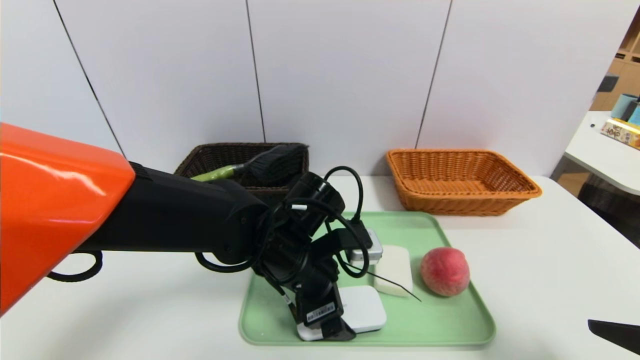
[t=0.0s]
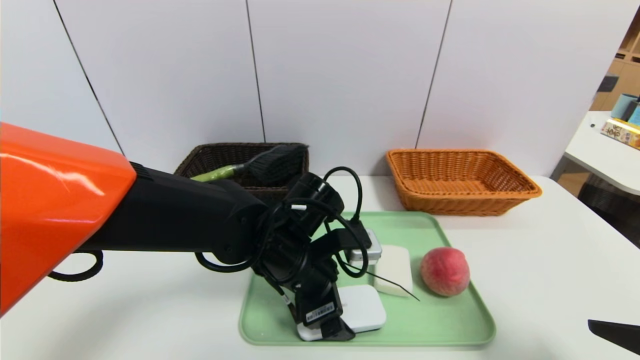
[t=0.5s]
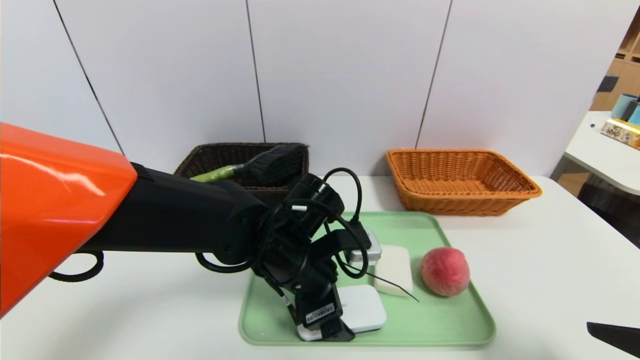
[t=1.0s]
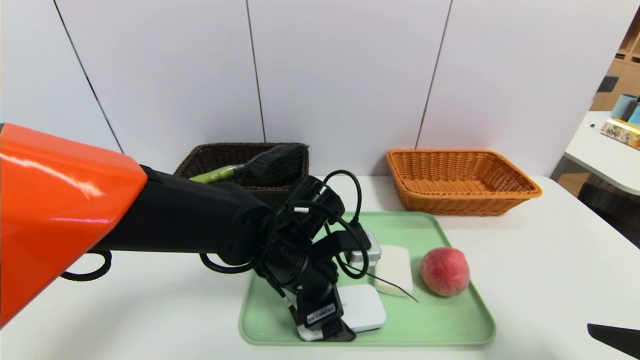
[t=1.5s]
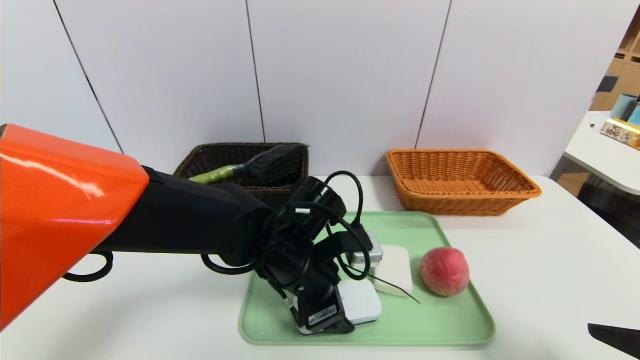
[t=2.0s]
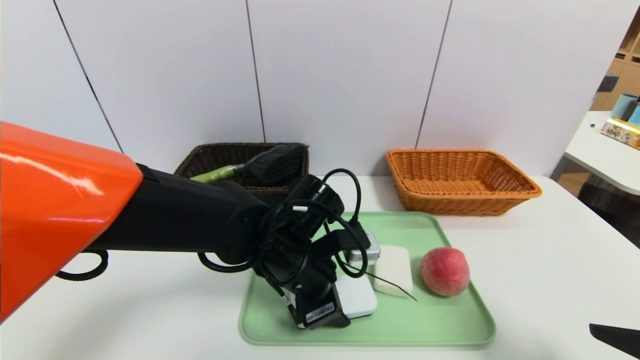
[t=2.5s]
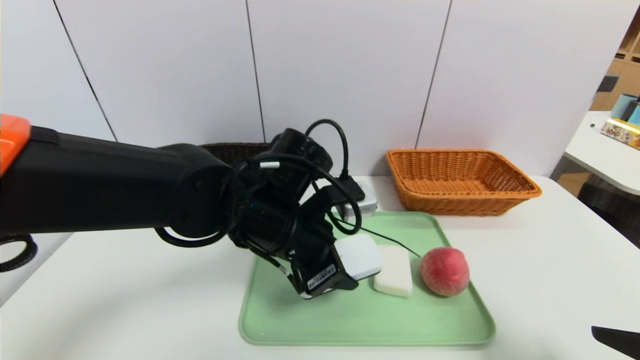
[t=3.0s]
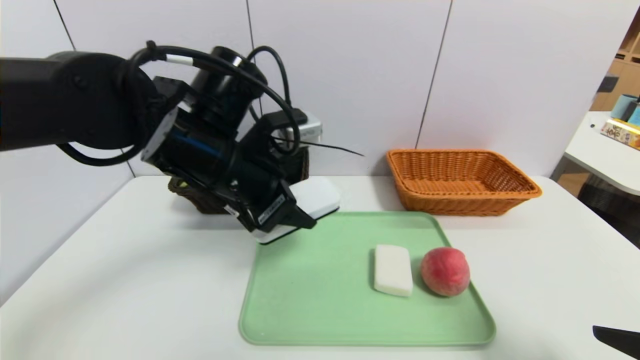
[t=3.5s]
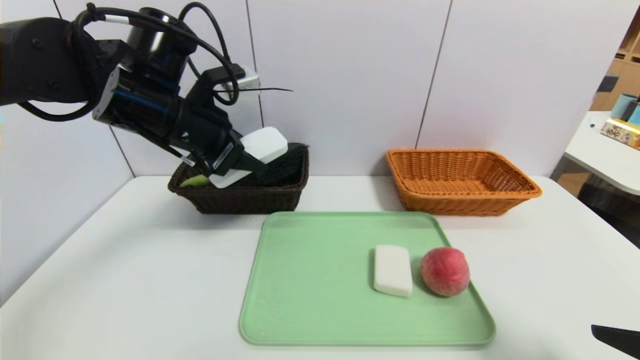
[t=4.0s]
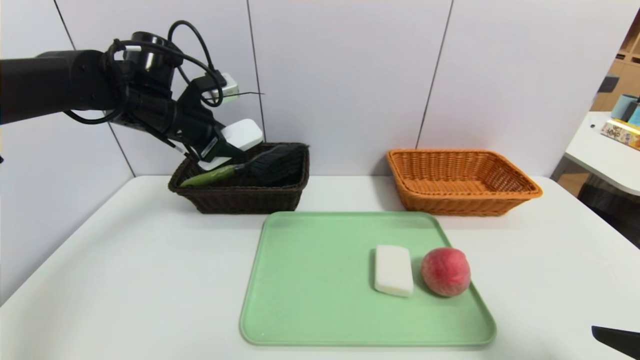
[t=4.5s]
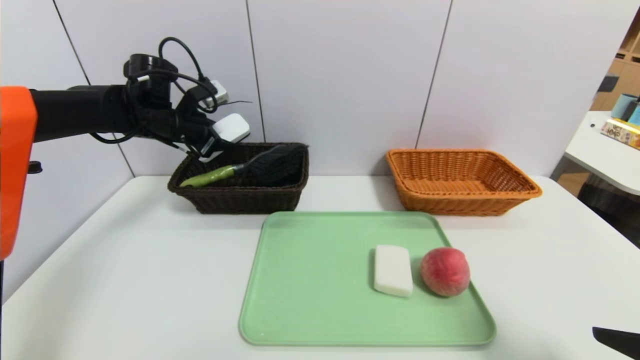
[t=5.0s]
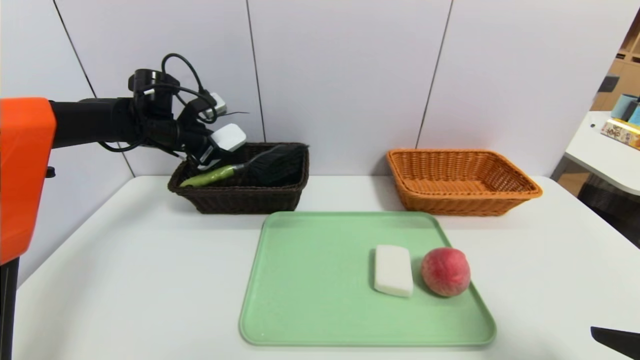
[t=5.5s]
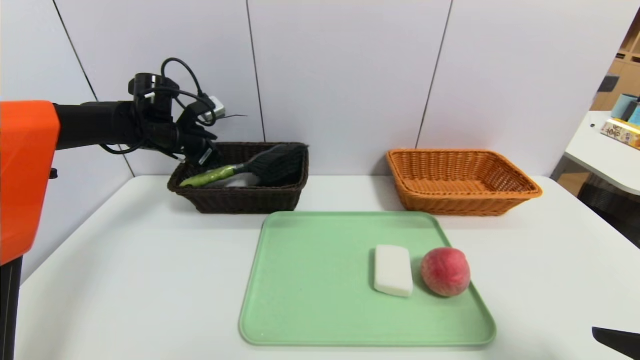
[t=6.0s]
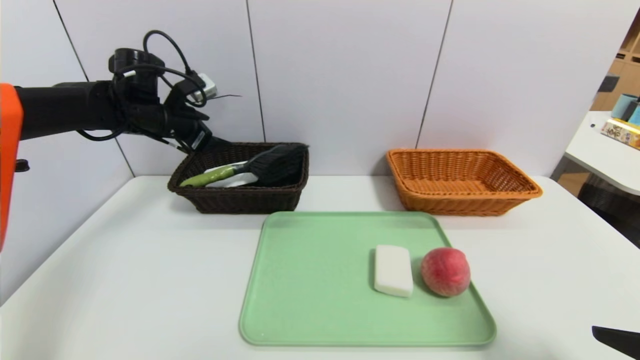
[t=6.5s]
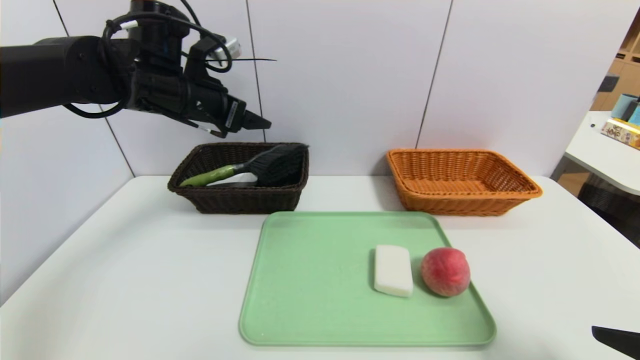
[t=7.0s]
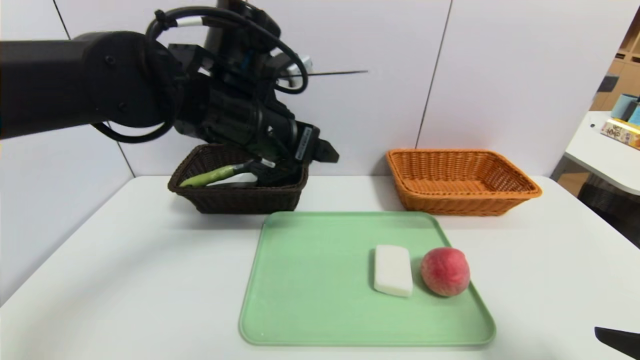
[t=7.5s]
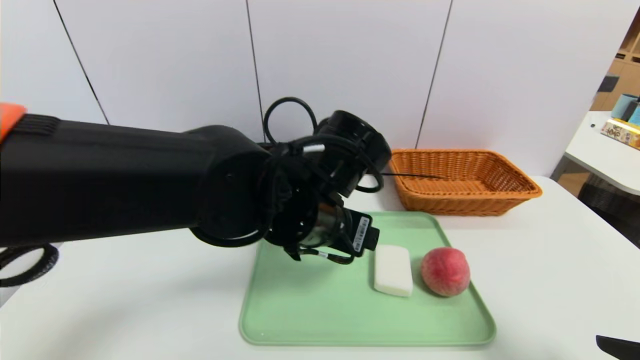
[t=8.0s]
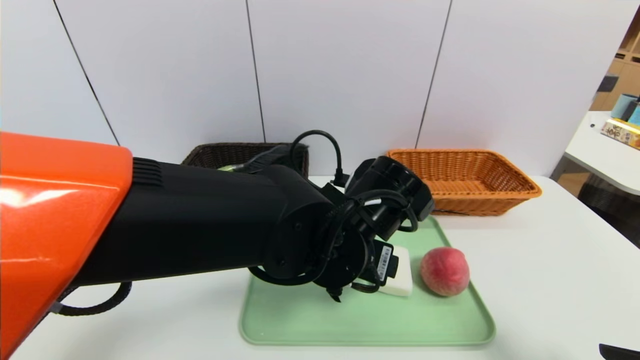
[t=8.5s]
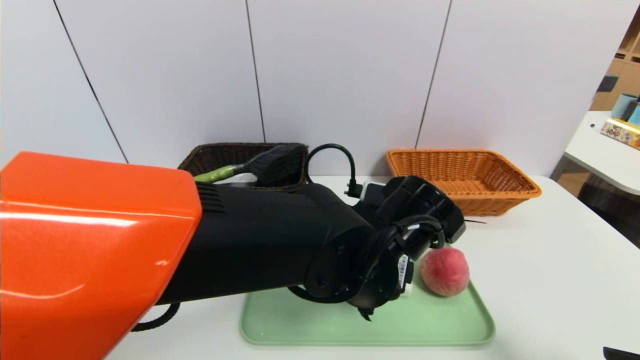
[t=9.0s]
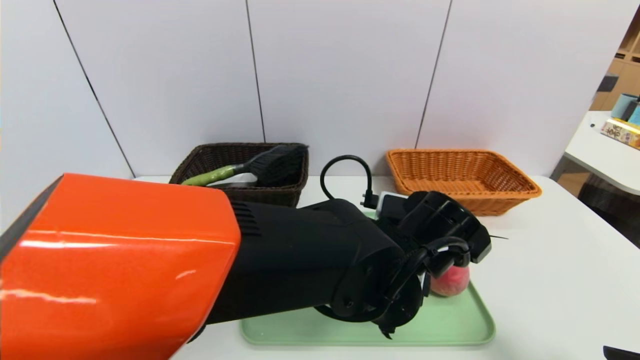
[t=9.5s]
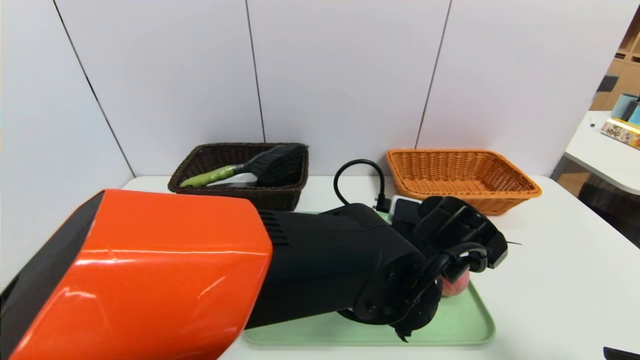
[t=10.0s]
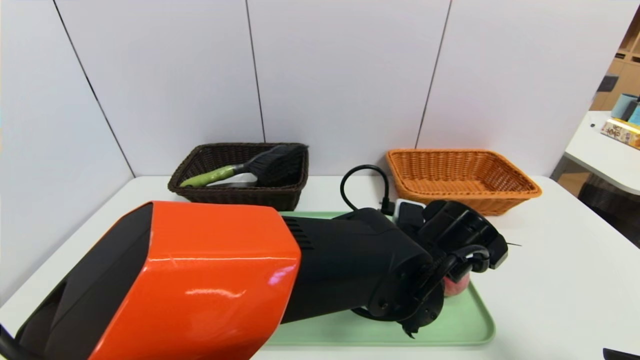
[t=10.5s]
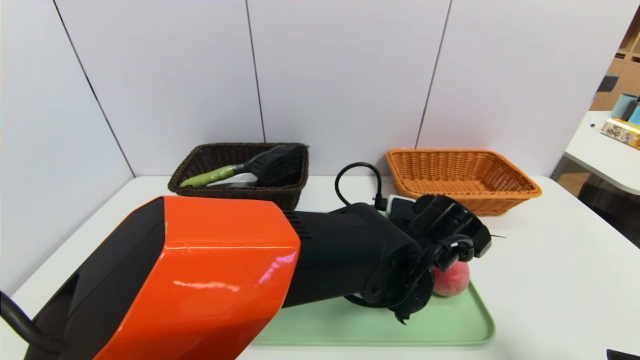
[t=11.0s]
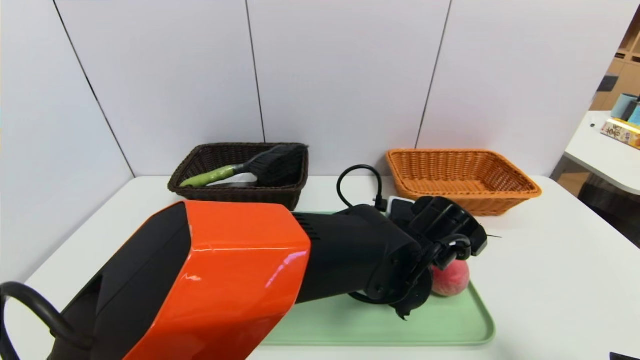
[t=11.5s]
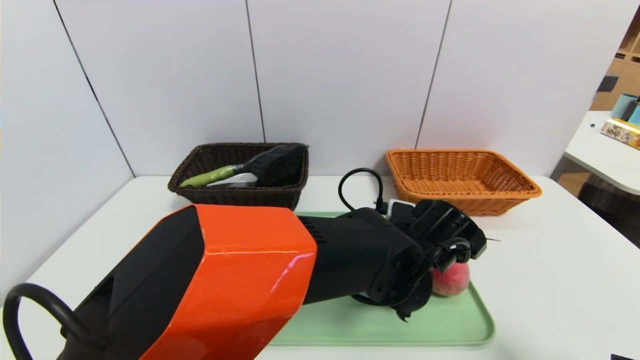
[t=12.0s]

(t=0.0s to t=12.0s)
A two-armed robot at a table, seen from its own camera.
Task of the whole recording: place the food in the right basket with the right gripper, and place the non food items in the left basket with the left gripper.
Step, t=0.0s - t=6.0s: Grasp the white eraser and put it in the left basket.
t=0.0s - t=2.0s: The left gripper closes its fingers.
t=2.0s - t=4.0s: The left gripper travels upward and to the left by some 20 cm.
t=4.0s - t=6.0s: The left gripper moves forward, to the left and downward, some 20 cm.
t=6.0s - t=8.0s: The left gripper goes roughly 35 cm to the right and backward.
t=8.0s - t=10.0s: The left gripper shifts approximately 10 cm to the right and downward.
t=10.0s - t=12.0s: The grippers stay close to where they were, moving slightly.

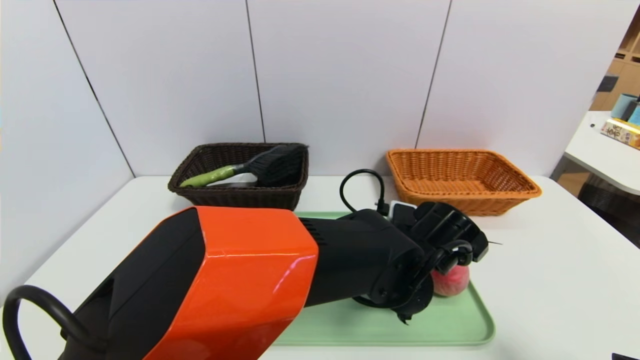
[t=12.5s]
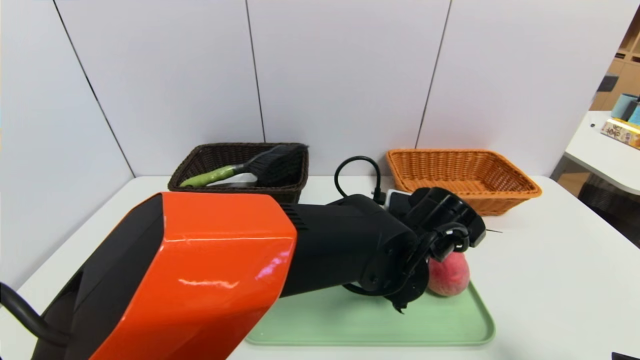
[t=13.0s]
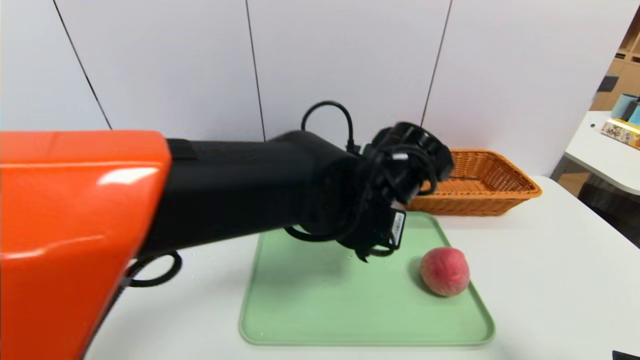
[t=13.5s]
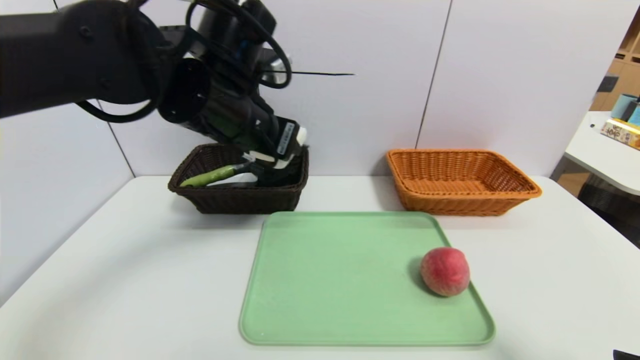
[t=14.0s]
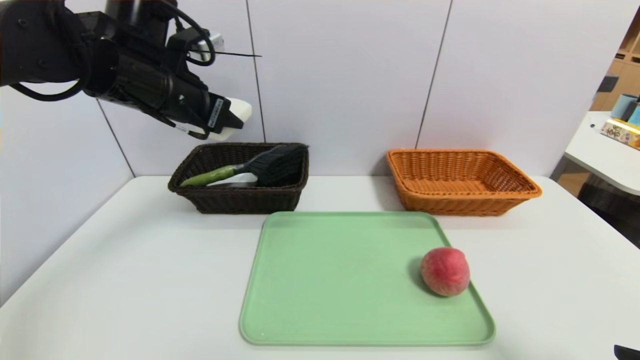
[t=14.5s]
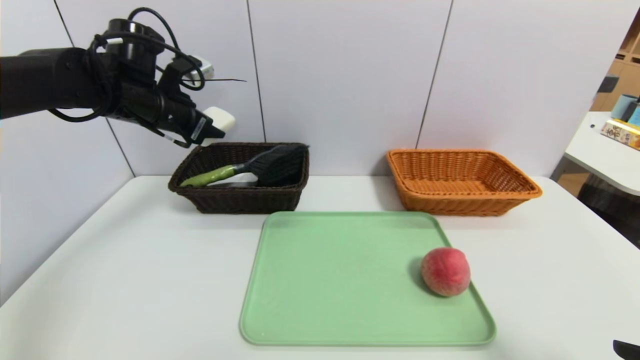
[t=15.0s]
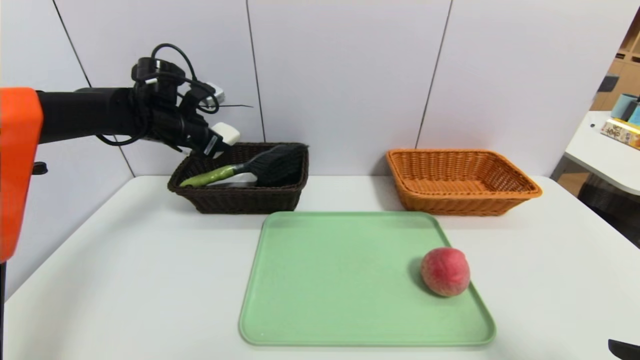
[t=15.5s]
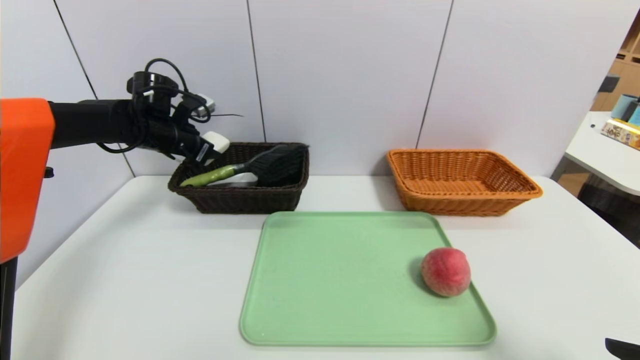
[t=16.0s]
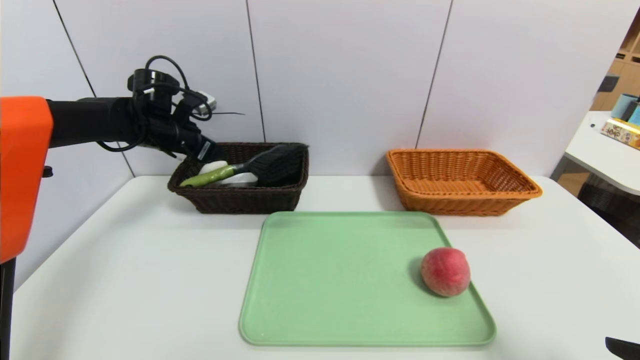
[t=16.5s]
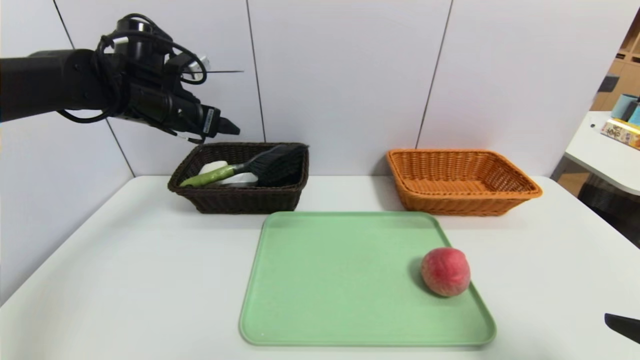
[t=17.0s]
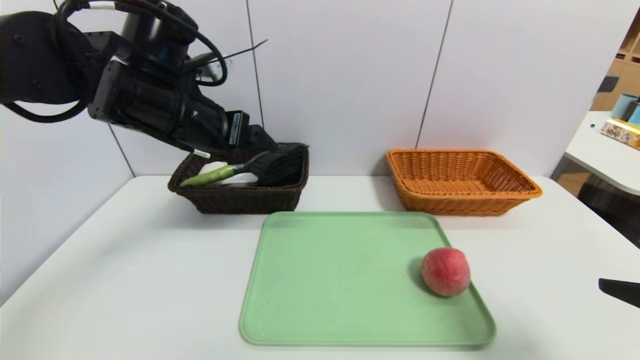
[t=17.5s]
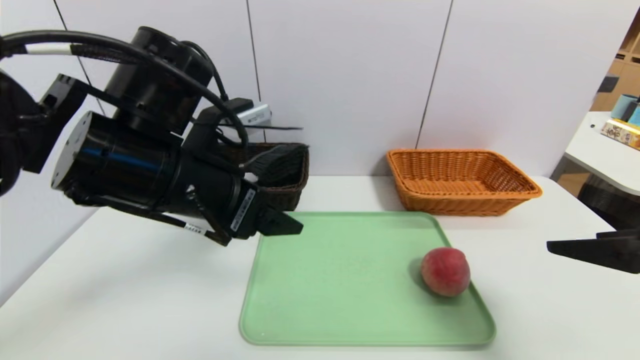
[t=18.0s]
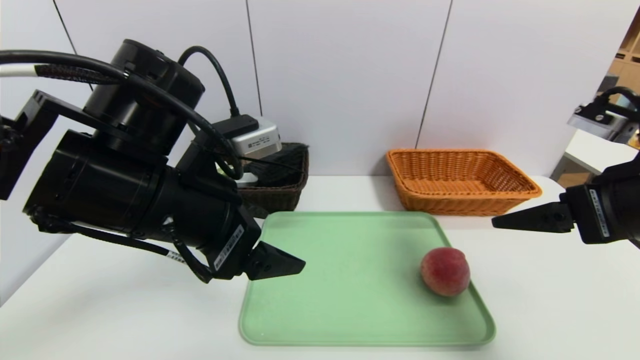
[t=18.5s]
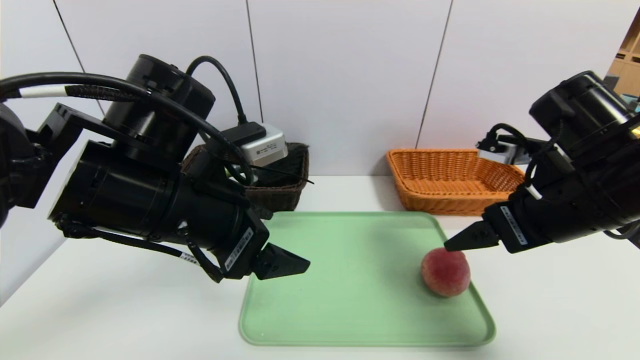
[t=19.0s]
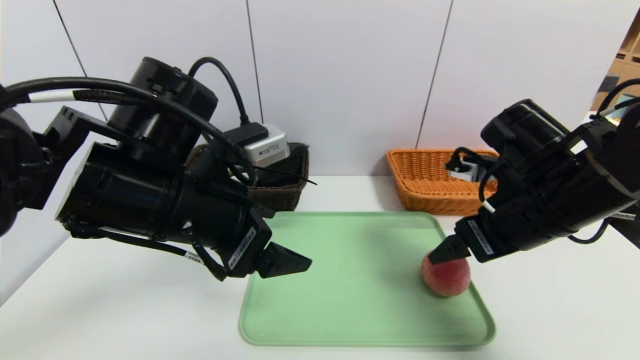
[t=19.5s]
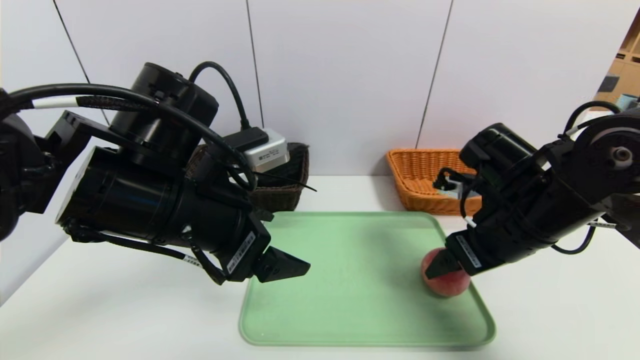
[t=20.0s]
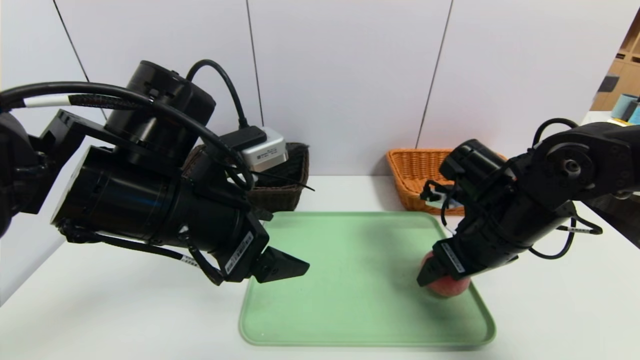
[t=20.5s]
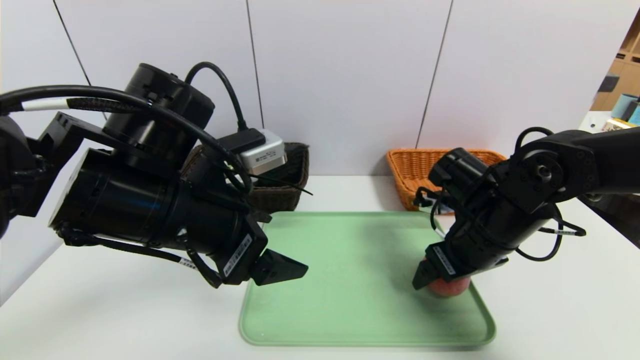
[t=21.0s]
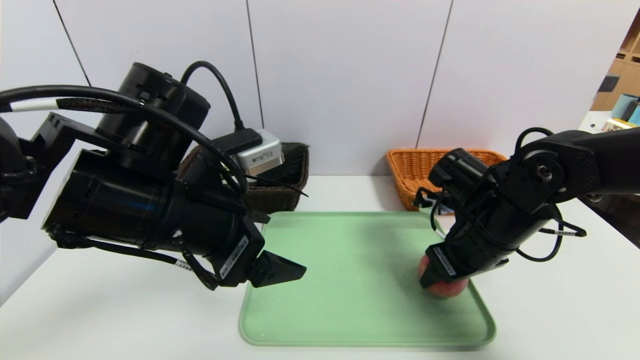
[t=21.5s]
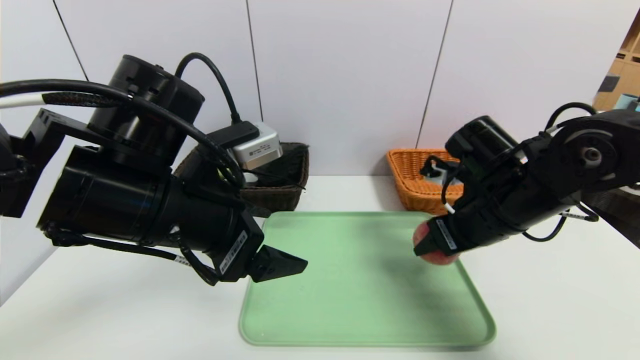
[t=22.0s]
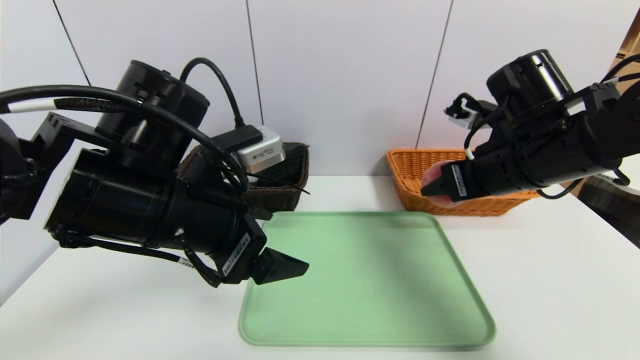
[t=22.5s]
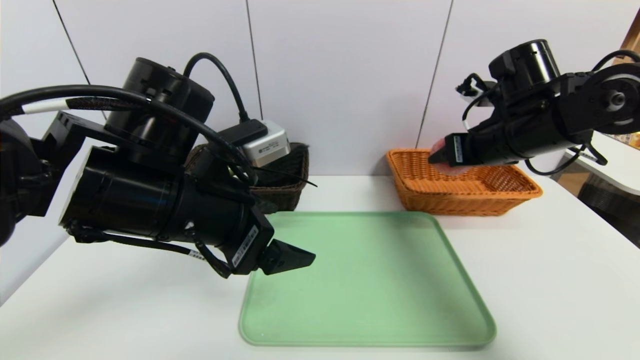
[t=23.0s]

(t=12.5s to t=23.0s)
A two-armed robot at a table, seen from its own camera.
Task of the whole recording: place the food in the right basket with the right gripper, and place the non food items in the left basket with the left gripper.
Step, t=12.5s - t=16.5s: Grasp the soap and put it in the left basket.
t=12.5s - t=14.5s: The left gripper moves to the left and upward, about 35 cm.
t=14.5s - t=16.5s: The left gripper travels forward, downward and to the left by roughly 15 cm, and opens.
t=16.5s - t=19.0s: The left gripper is displaced backward and to the right by approximately 30 cm. Meanwhile the right gripper travels forward and to the left by about 20 cm.
t=19.0s - t=21.0s: The right gripper moves downward and forward, approximately 10 cm.
t=21.0s - t=23.0s: The right gripper heads upward and forward, covering approximately 10 cm, and closes up.
